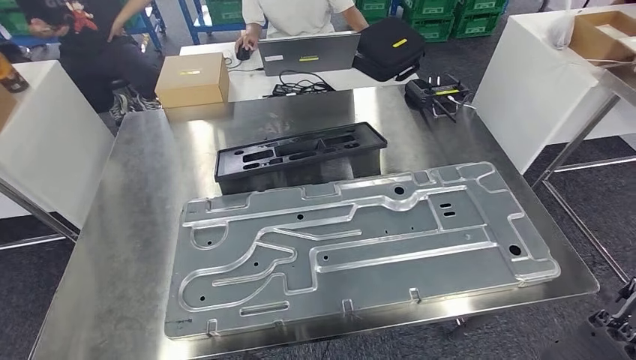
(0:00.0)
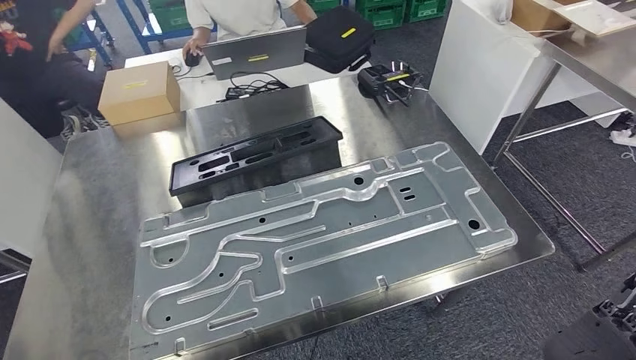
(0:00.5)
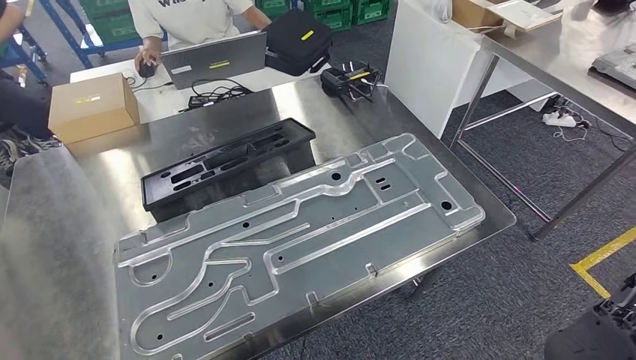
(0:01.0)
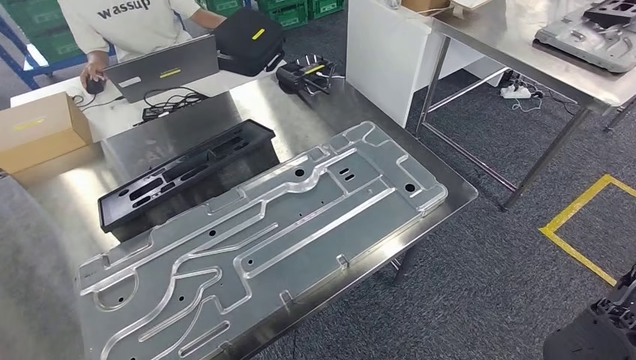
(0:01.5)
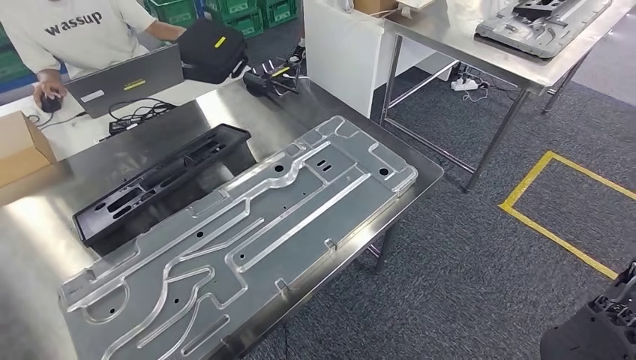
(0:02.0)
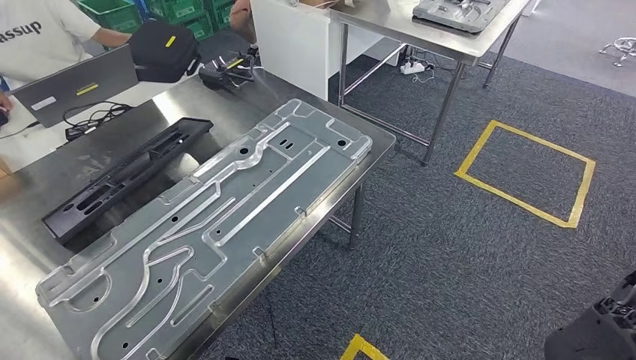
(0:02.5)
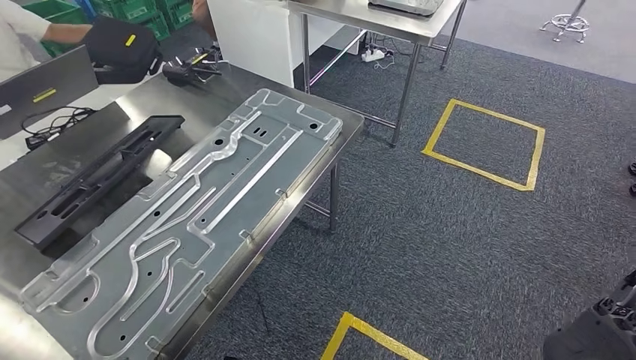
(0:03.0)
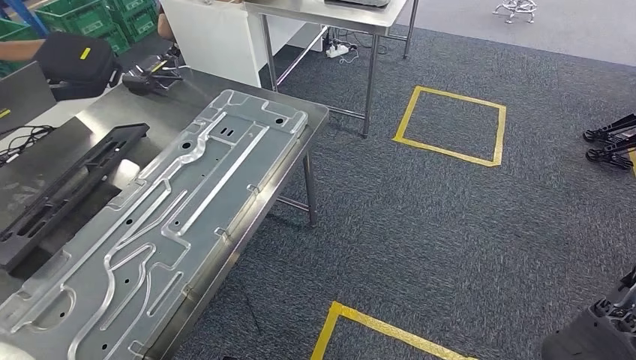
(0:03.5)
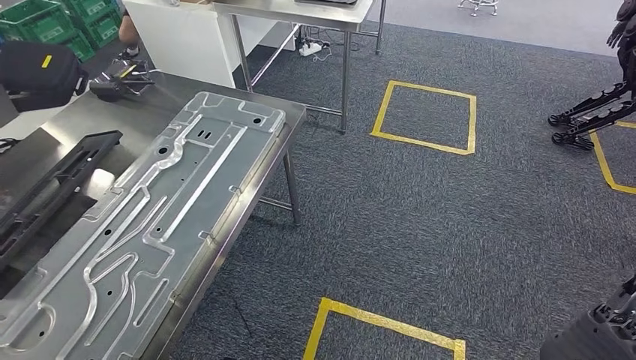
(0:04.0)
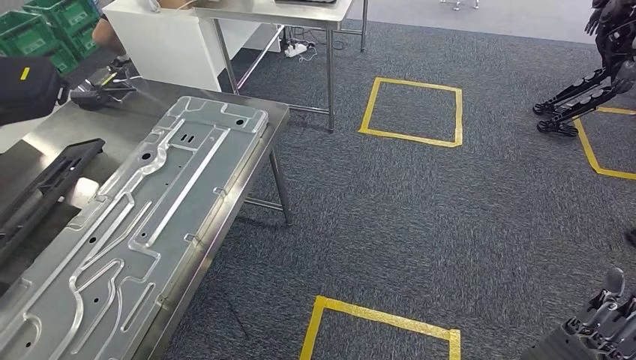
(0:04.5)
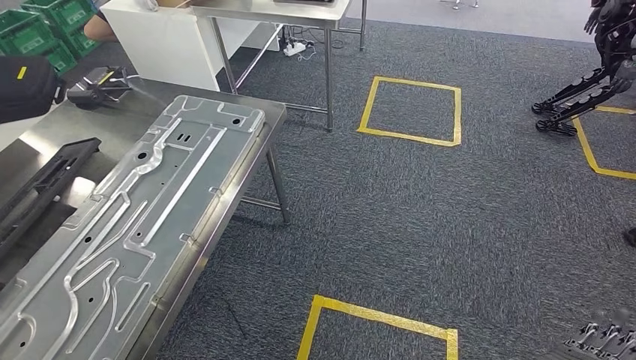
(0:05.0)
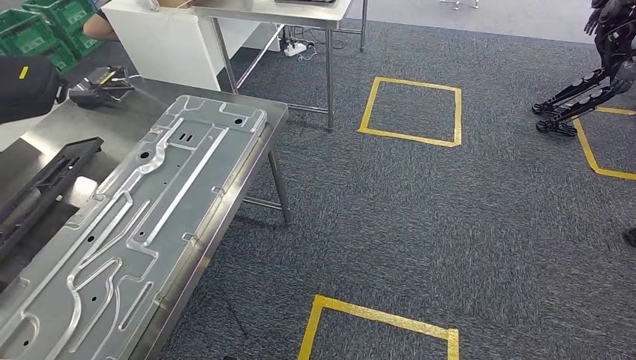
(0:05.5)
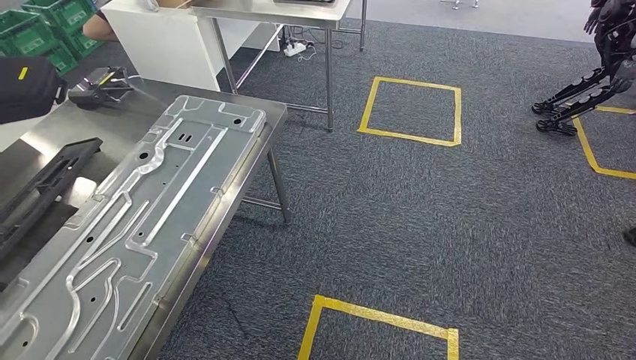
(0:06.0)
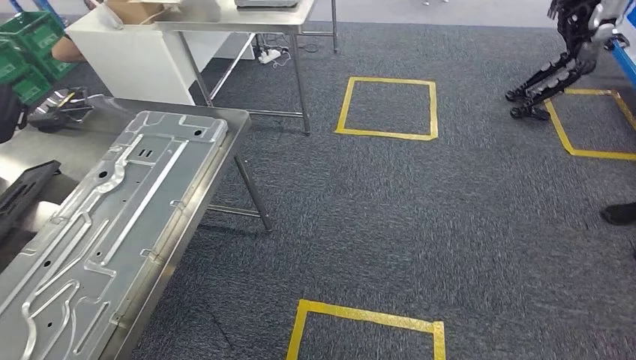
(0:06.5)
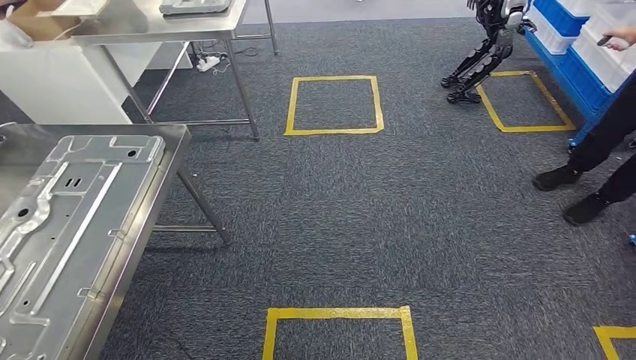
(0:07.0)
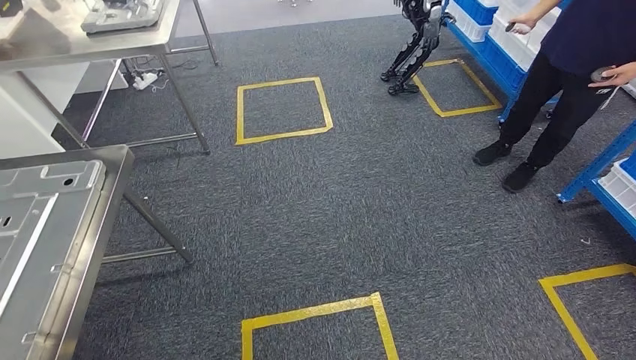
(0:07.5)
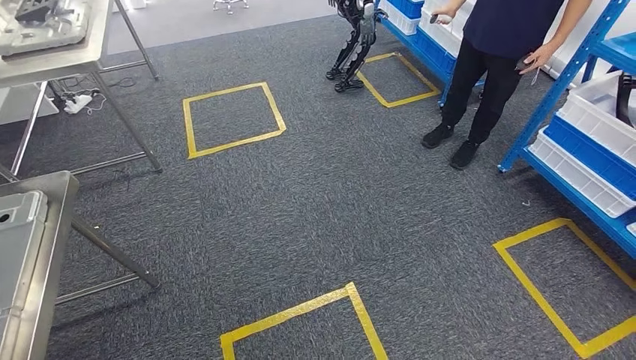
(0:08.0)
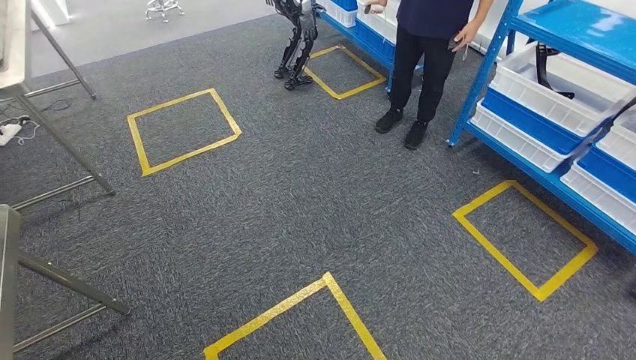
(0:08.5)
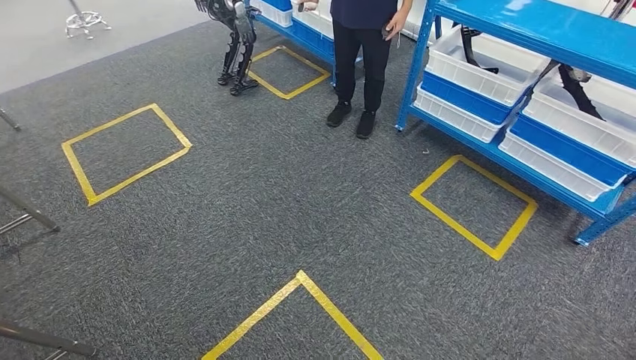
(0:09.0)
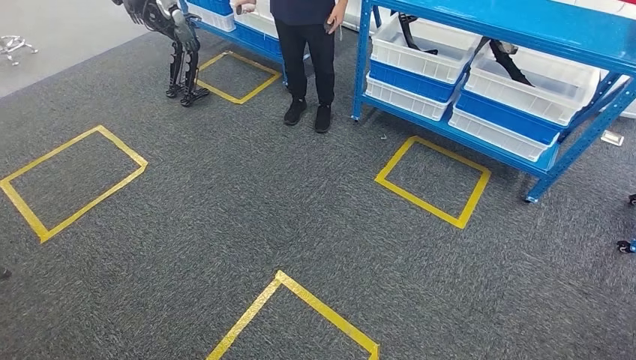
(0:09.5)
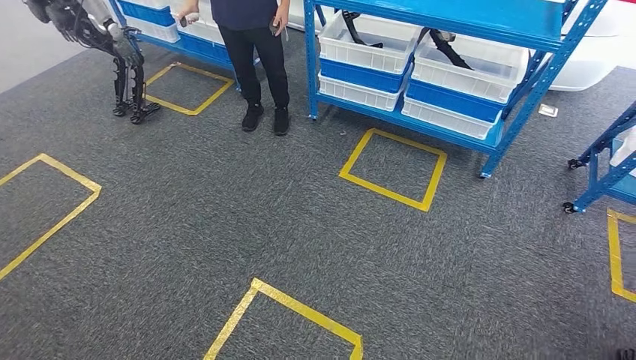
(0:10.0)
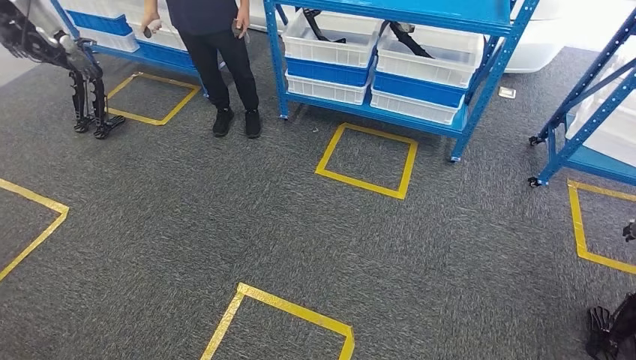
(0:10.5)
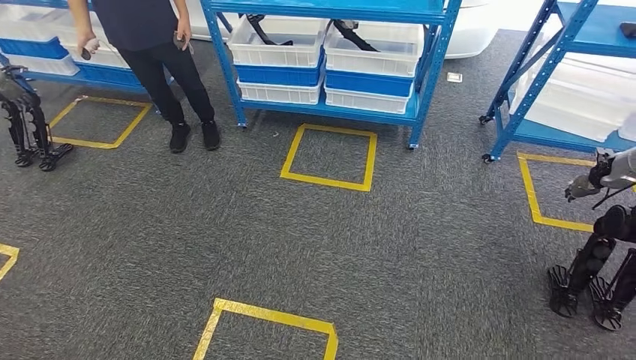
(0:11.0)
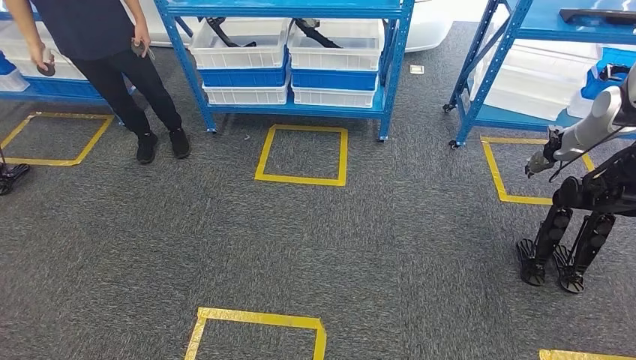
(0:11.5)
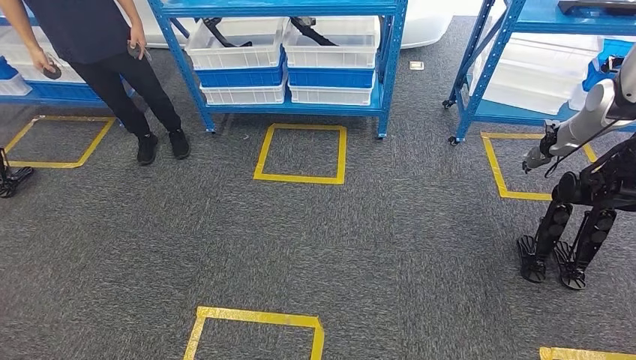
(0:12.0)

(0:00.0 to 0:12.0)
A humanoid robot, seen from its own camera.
Step, 0:01.5 - 0:12.0: Return to the initial position at the shelf.
